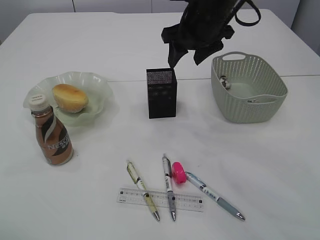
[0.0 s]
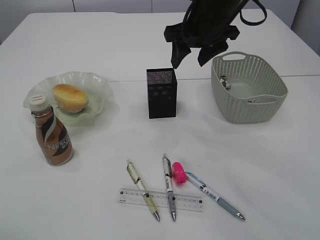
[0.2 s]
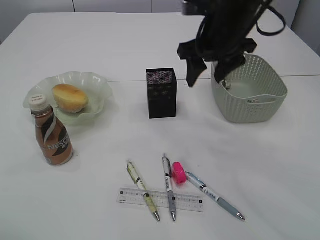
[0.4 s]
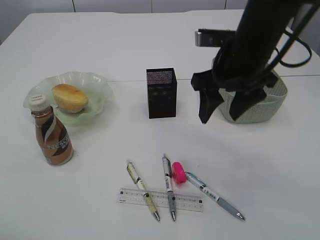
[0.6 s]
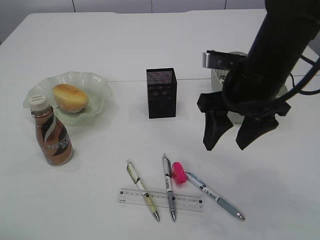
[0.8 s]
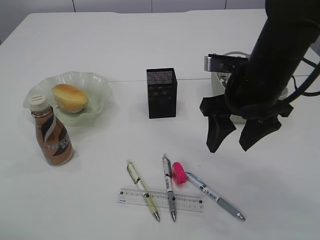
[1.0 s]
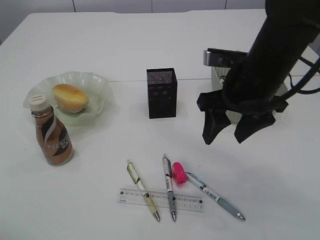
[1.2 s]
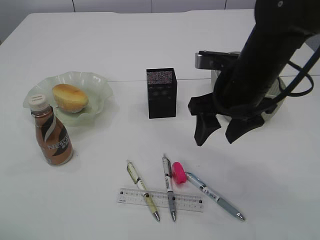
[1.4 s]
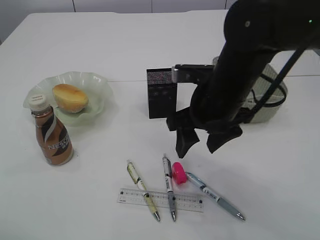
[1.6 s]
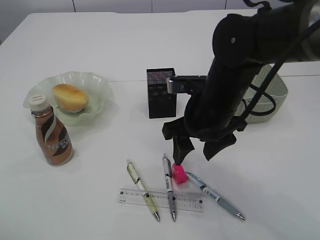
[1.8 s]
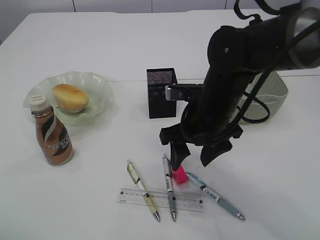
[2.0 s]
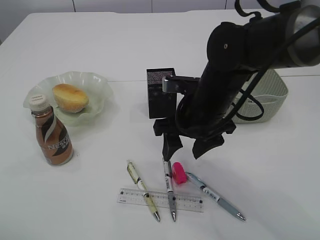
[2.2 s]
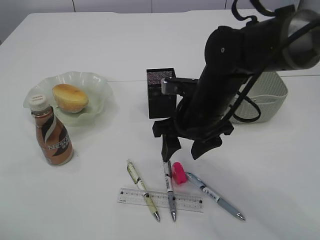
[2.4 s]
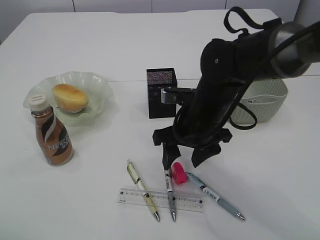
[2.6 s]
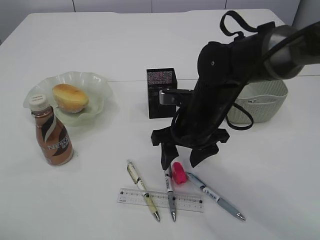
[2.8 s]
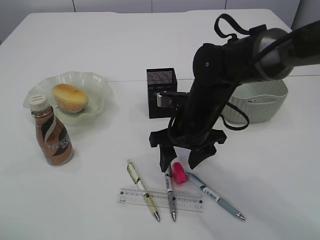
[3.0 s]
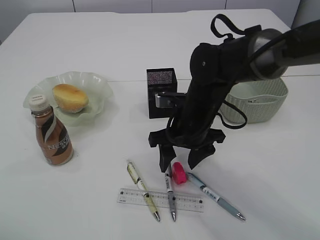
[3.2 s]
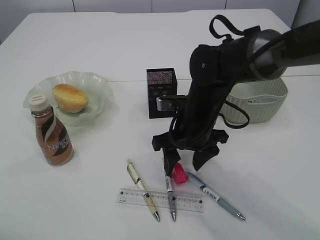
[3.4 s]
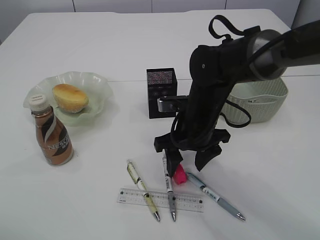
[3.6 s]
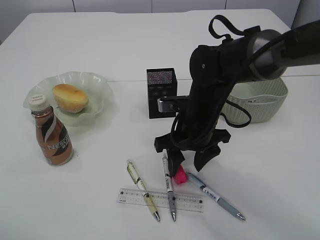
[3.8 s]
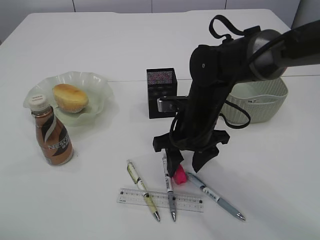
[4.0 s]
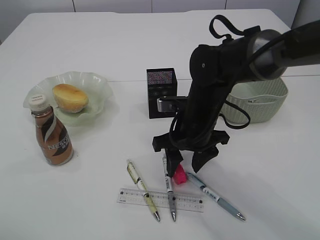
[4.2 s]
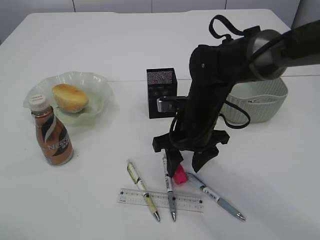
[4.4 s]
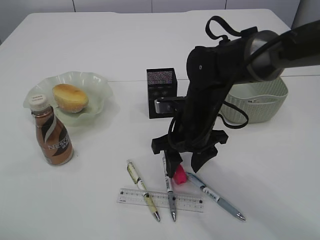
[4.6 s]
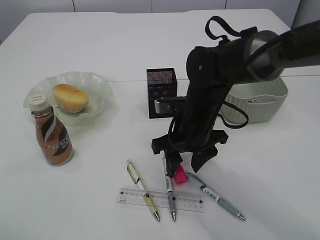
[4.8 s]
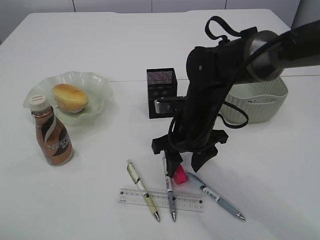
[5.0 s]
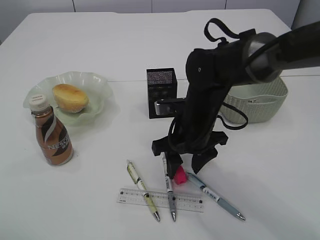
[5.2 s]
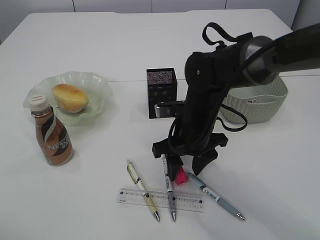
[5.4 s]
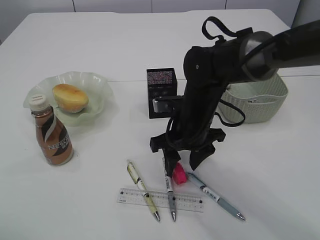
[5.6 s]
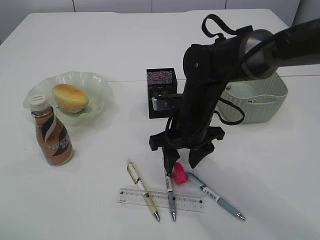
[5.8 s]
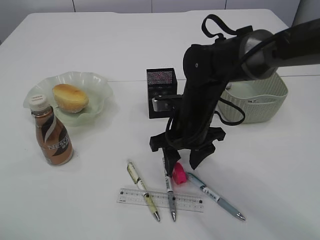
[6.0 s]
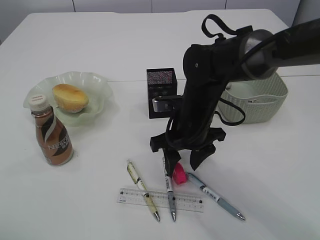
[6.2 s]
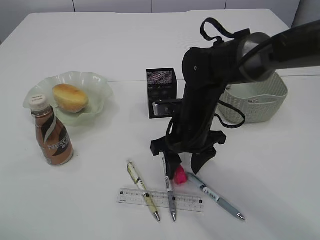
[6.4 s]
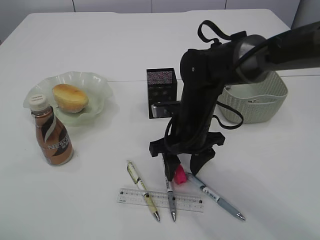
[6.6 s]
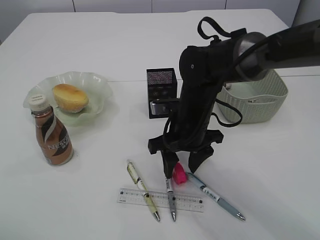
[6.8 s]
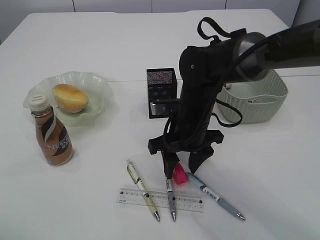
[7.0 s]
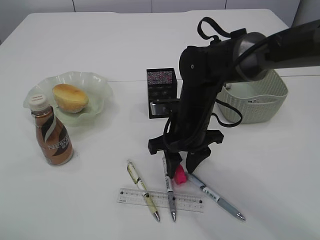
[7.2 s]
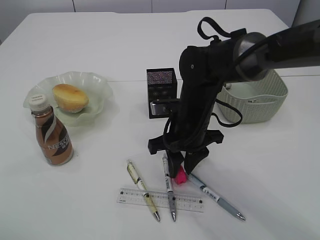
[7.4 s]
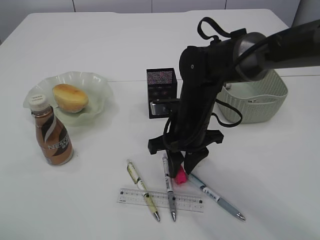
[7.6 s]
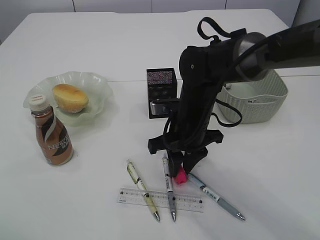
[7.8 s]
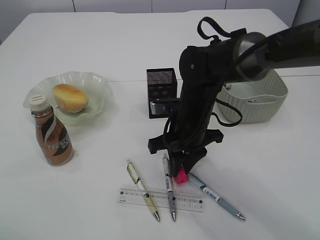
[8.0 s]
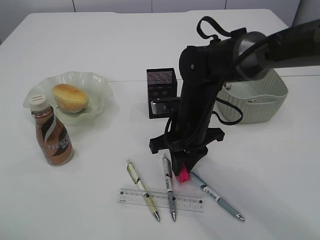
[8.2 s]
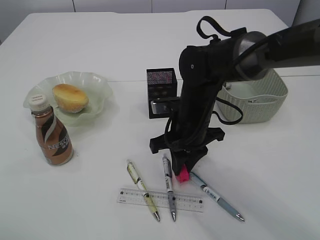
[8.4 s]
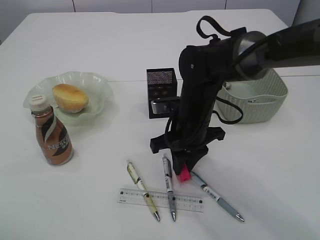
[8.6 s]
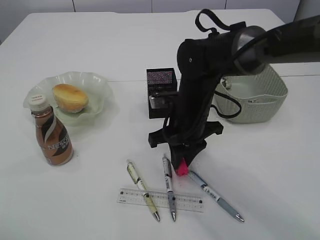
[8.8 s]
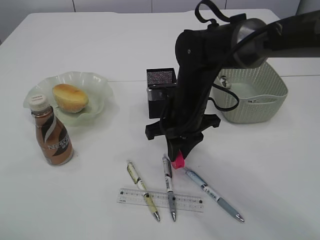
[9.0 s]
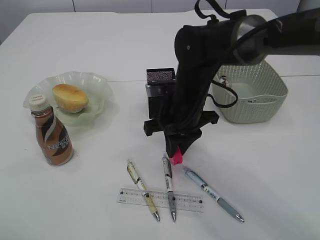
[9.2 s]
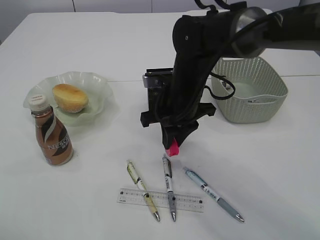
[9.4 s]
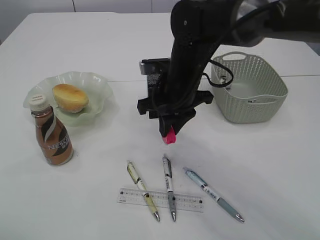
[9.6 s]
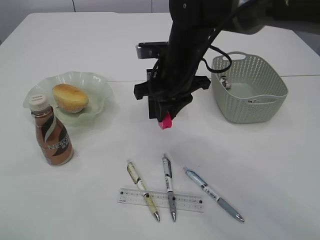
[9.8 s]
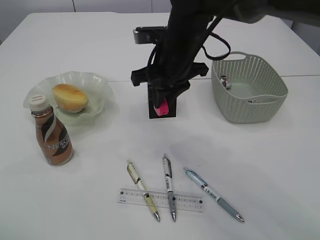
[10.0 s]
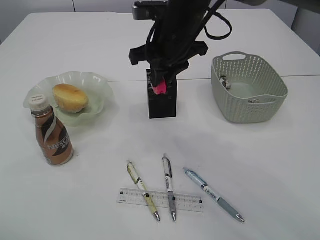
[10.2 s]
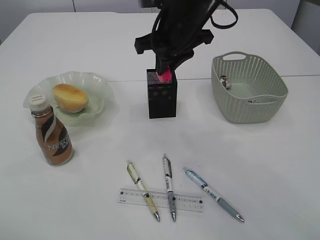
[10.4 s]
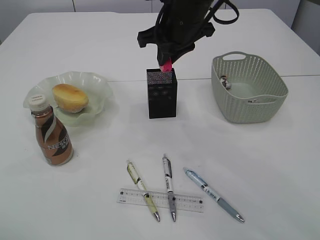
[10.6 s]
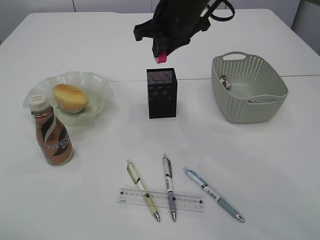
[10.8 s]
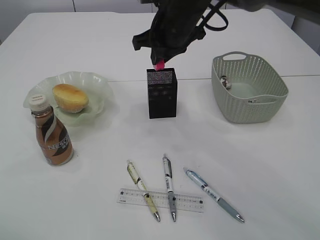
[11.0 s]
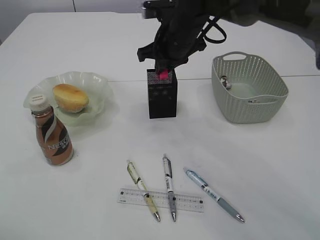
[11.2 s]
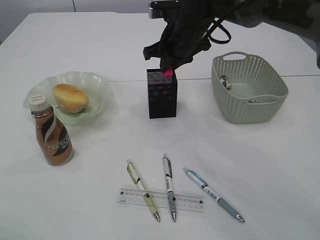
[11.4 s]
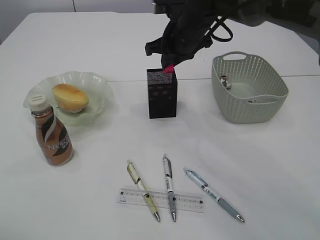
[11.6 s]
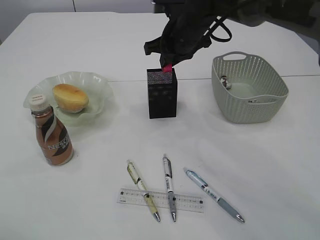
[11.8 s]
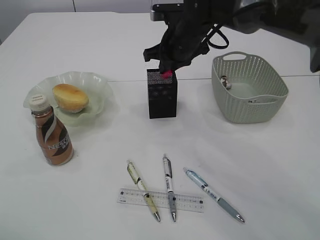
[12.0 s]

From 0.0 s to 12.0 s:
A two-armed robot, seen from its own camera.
Step, from 0.0 s to 9.6 s: Pick up the red pencil sharpener.
From 0.0 s to 1.6 s: The right gripper shifts some 15 cm backward and downward.
From 1.6 s to 3.0 s: The right gripper moves downward, approximately 5 cm.
From 3.0 s to 4.4 s: The grippers stay close to where they were, moving slightly.
From 4.4 s to 7.6 s: Both grippers stay put.
From 7.6 s to 9.0 s: The grippers move only a little.
From 9.0 s to 10.4 s: The right gripper moves upward and forward, approximately 15 cm.
From 10.4 s to 12.0 s: The right gripper goes about 10 cm forward and downward.

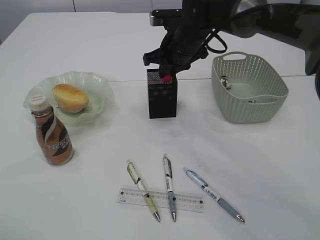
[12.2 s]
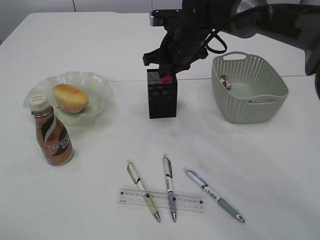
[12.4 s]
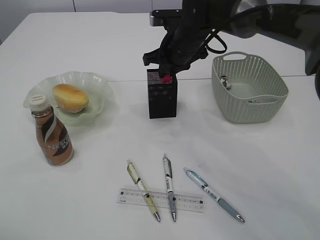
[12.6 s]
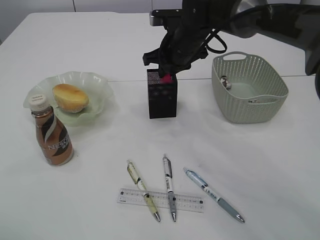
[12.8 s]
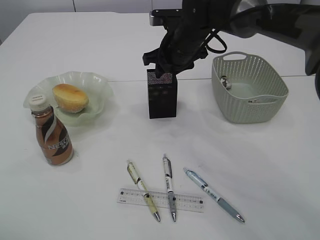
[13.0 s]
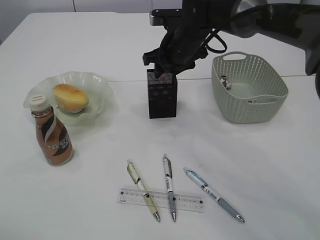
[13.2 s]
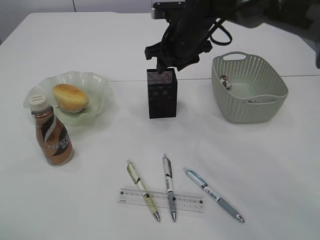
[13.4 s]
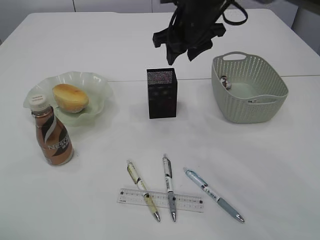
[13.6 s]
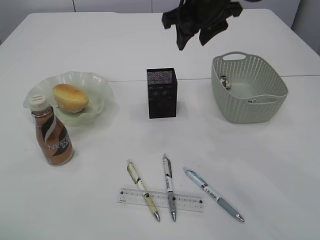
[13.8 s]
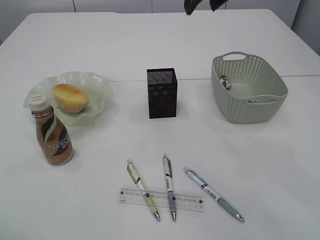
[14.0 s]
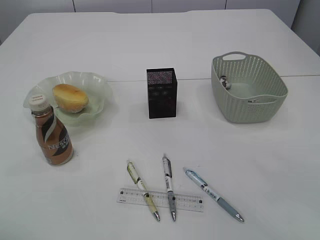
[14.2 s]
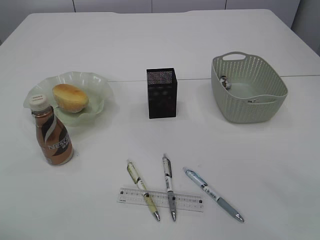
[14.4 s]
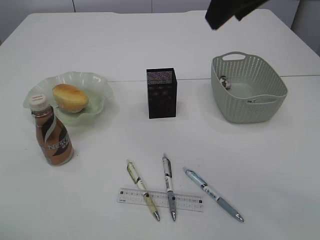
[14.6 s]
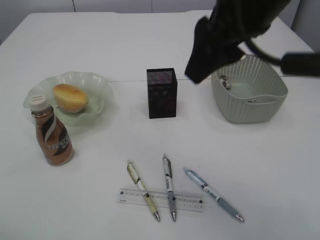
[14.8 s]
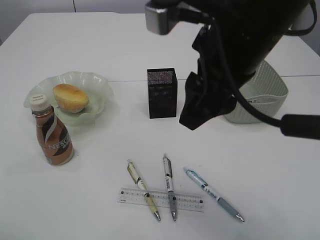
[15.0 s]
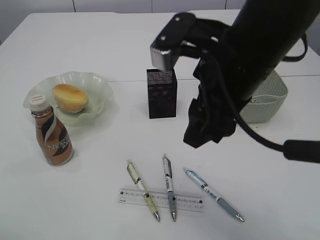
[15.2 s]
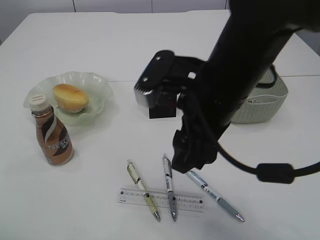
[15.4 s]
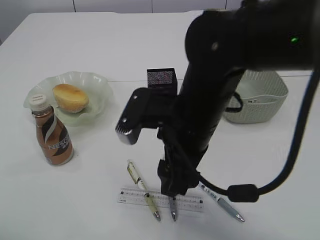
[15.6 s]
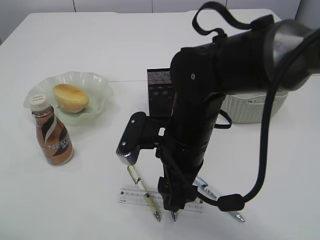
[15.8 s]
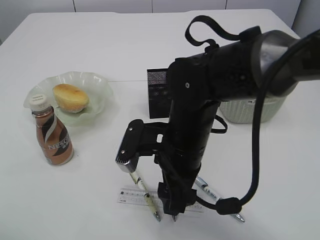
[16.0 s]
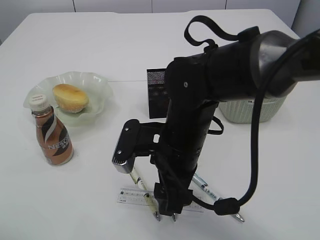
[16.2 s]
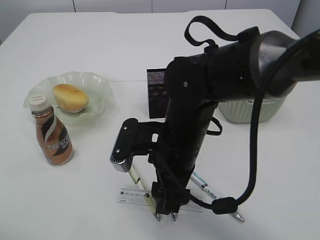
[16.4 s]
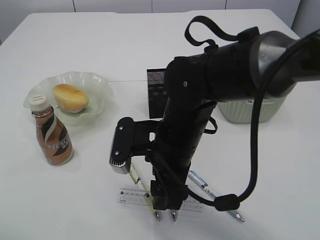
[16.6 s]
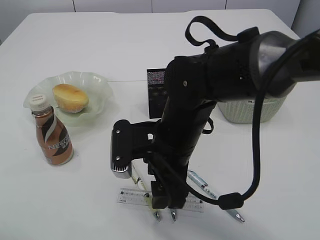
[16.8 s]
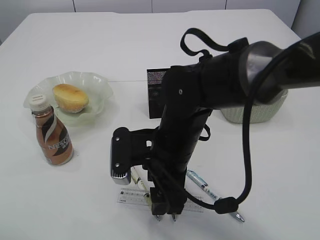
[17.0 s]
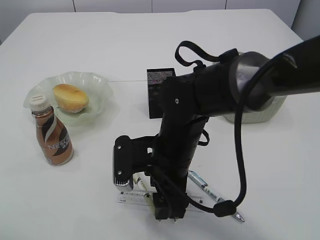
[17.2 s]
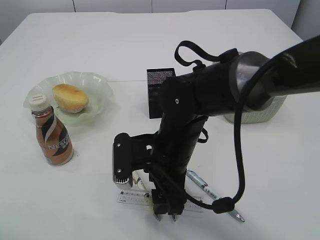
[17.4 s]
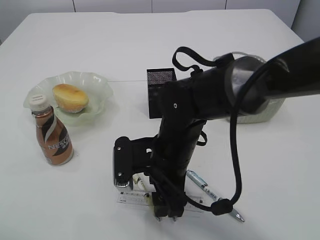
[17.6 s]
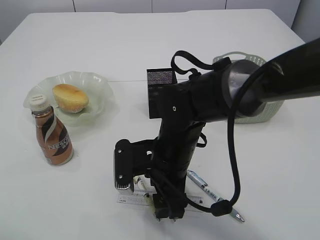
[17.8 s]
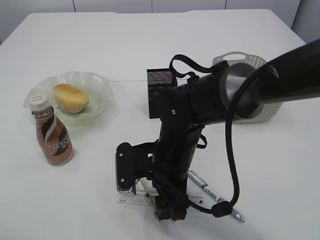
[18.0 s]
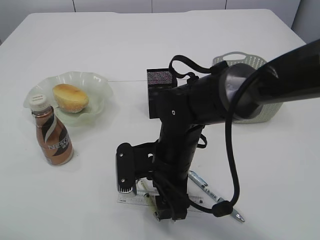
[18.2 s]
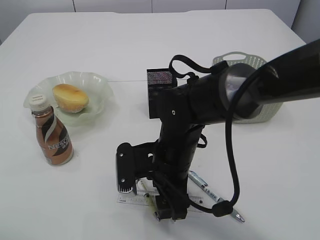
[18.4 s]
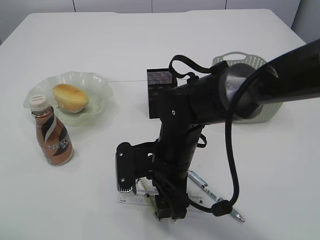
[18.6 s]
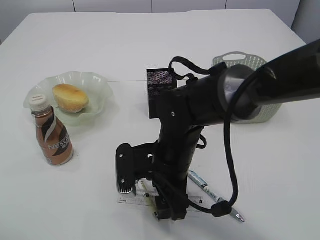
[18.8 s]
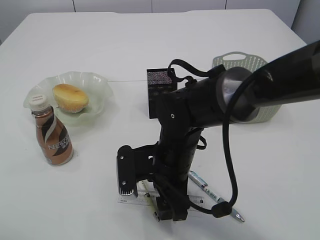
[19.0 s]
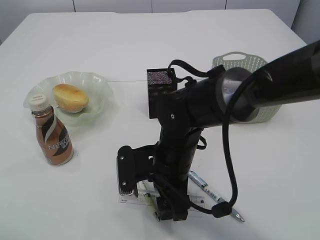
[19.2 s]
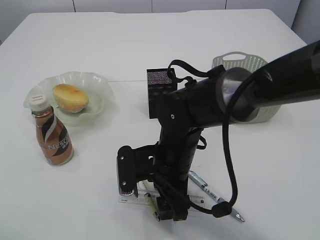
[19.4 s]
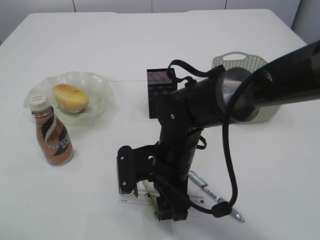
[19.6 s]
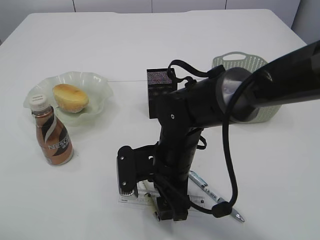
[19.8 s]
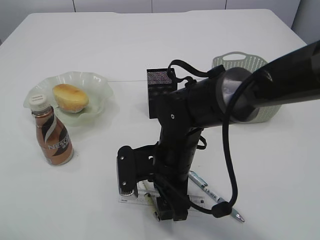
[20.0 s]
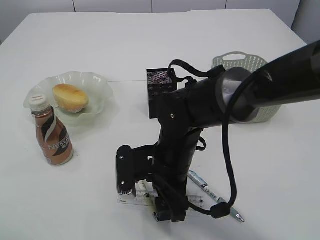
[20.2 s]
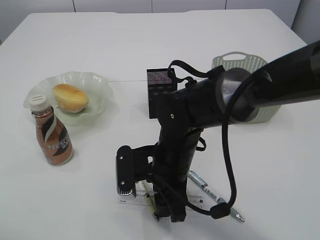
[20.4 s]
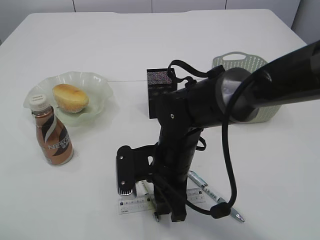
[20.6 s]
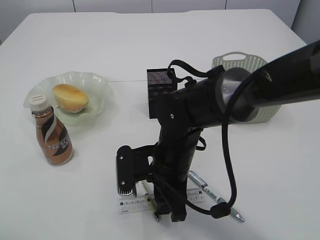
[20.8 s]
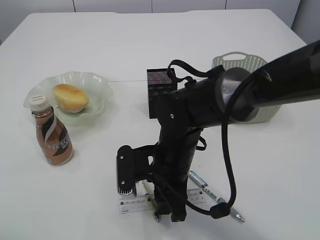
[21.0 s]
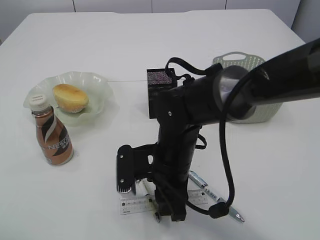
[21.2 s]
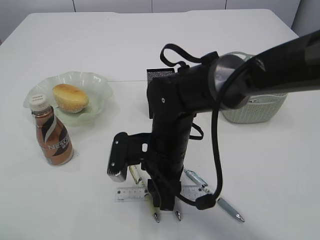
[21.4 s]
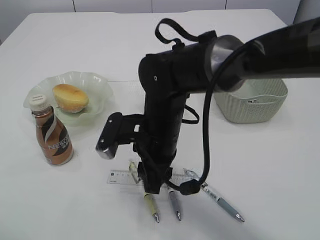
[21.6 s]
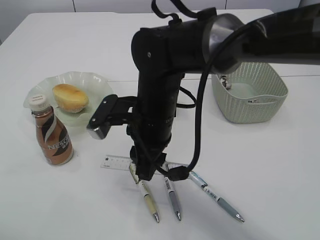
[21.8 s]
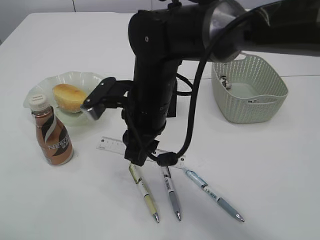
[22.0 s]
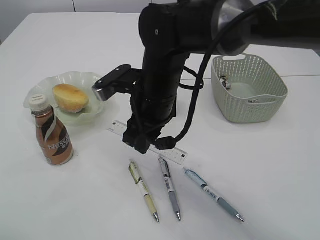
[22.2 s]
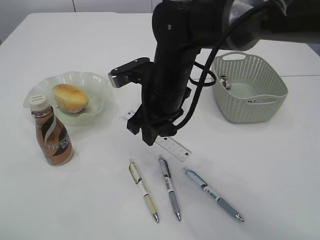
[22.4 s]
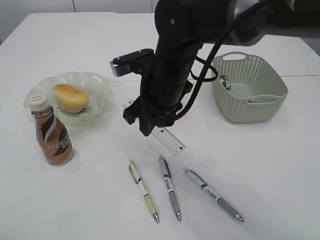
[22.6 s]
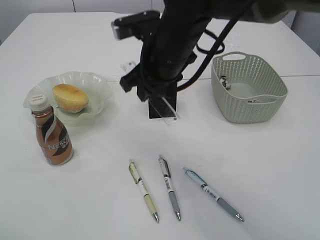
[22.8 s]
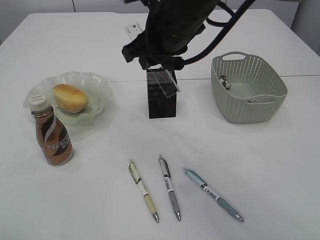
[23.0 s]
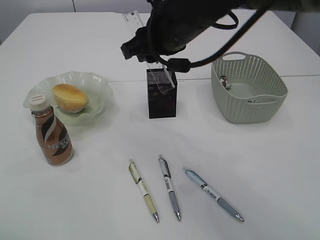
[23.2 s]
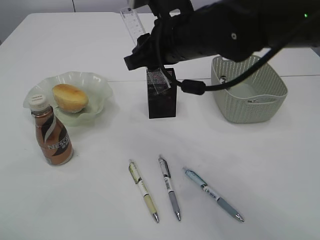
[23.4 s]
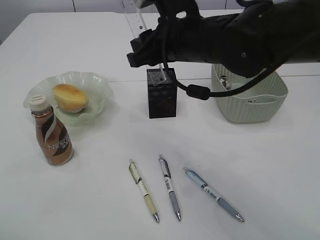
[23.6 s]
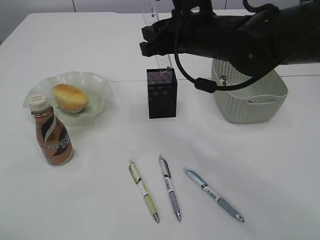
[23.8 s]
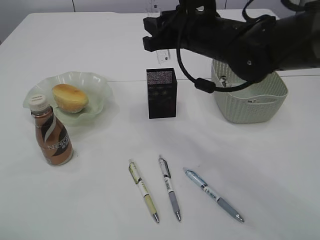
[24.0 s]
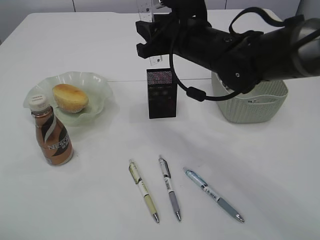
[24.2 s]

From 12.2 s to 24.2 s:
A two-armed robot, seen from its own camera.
Step, from 14.0 s to 21.8 s: pick up the ruler.
From 12.2 s to 13.8 s: The right gripper heads upward, covering some 10 cm, and opens its fingers.
From 13.8 s to 15.2 s: The right gripper is displaced backward by approximately 20 cm.
From 15.2 s to 16.6 s: The right gripper moves downward and to the left, about 15 cm.
From 16.6 s to 18.2 s: The right gripper changes place by approximately 5 cm.
From 18.2 s to 19.8 s: The two grippers keep their place.
From 19.8 s to 21.2 s: The right gripper closes up.
From 21.2 s to 22.6 s: The right gripper goes approximately 10 cm upward and forward.
From 22.6 s to 24.2 s: The right gripper shifts approximately 5 cm to the right.
